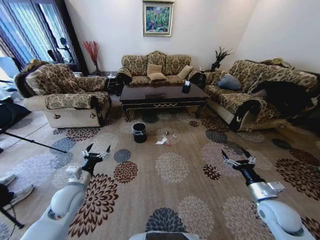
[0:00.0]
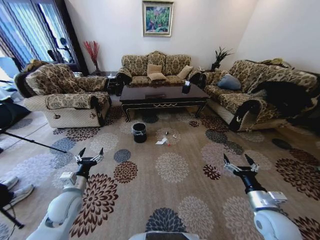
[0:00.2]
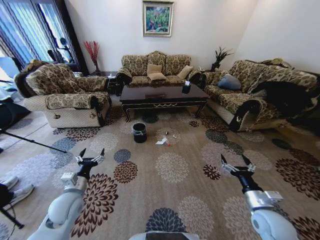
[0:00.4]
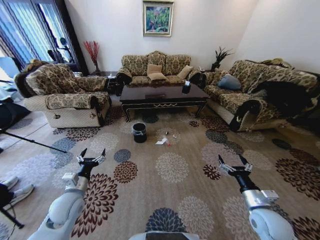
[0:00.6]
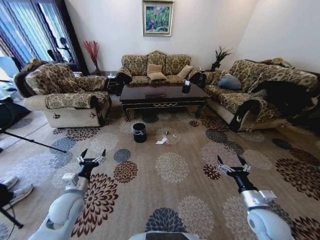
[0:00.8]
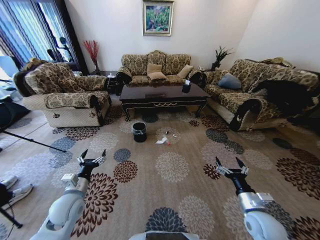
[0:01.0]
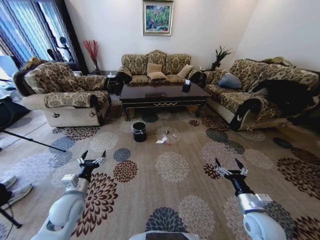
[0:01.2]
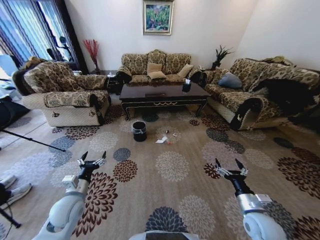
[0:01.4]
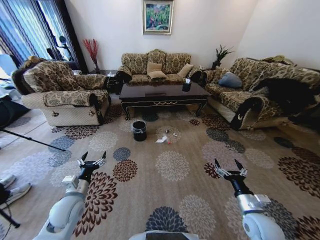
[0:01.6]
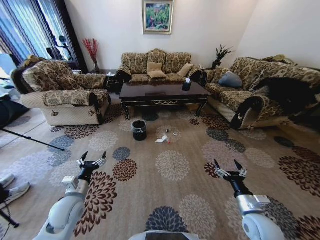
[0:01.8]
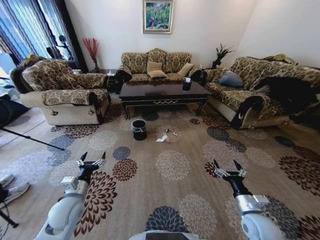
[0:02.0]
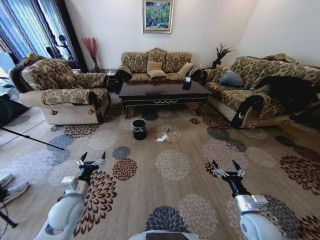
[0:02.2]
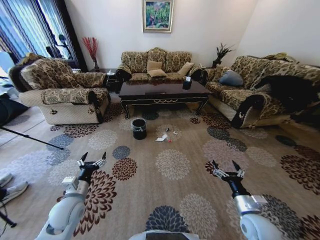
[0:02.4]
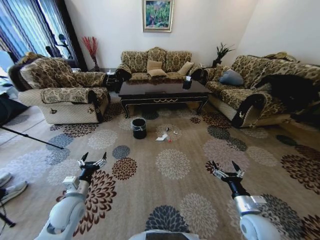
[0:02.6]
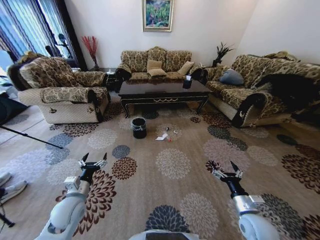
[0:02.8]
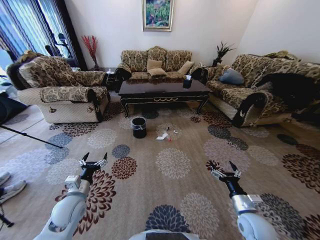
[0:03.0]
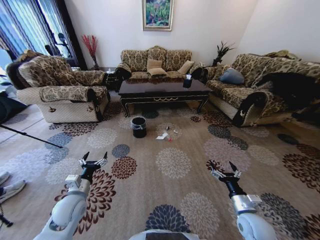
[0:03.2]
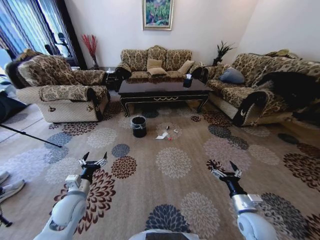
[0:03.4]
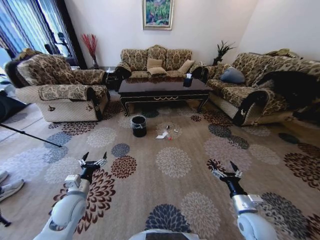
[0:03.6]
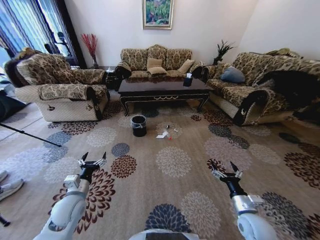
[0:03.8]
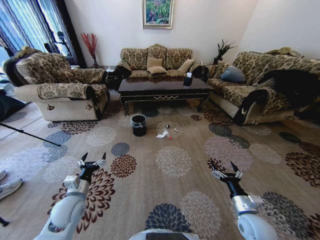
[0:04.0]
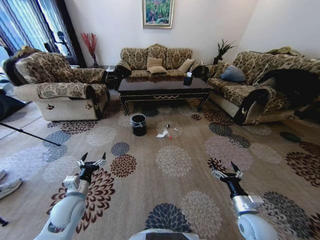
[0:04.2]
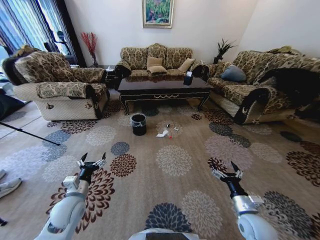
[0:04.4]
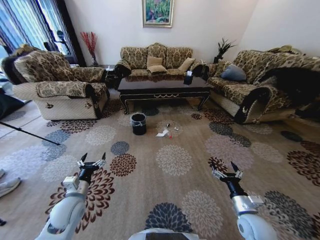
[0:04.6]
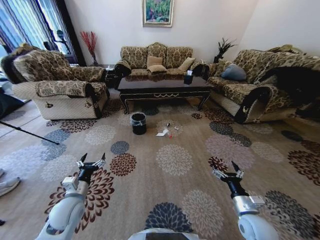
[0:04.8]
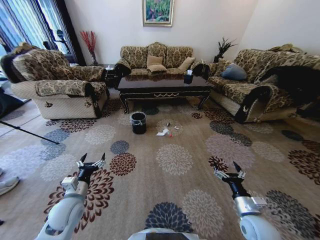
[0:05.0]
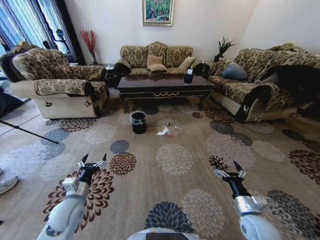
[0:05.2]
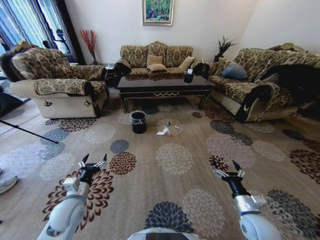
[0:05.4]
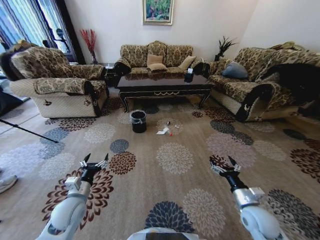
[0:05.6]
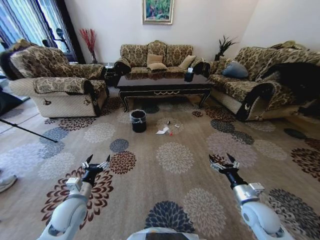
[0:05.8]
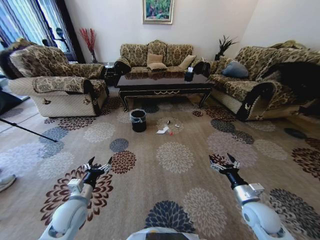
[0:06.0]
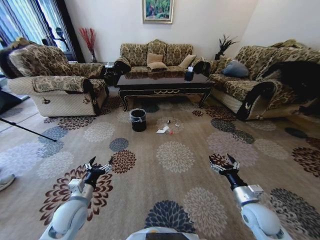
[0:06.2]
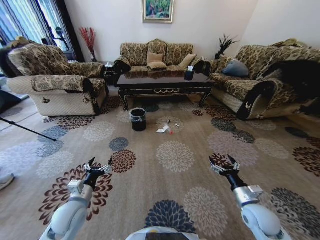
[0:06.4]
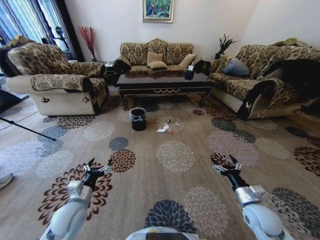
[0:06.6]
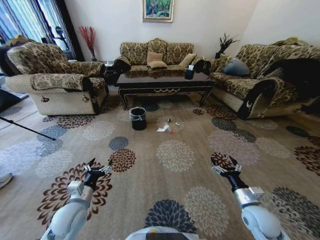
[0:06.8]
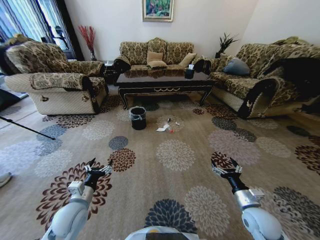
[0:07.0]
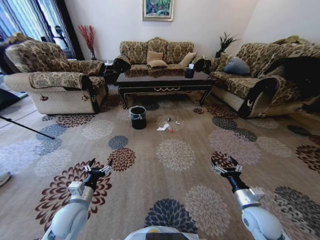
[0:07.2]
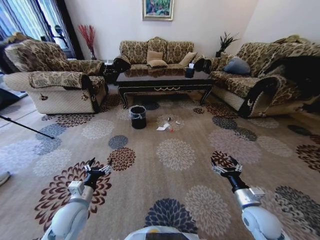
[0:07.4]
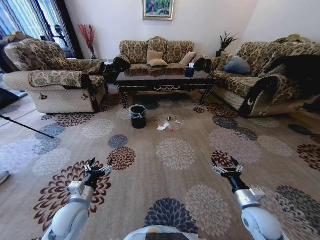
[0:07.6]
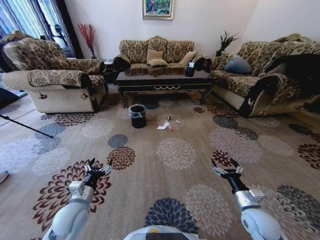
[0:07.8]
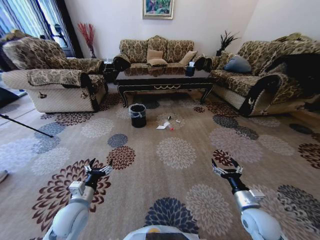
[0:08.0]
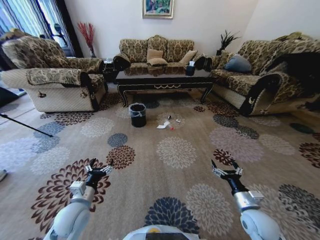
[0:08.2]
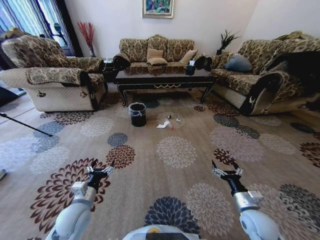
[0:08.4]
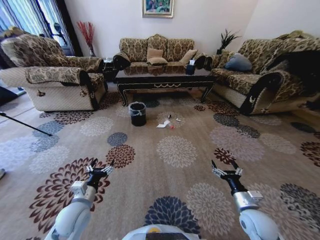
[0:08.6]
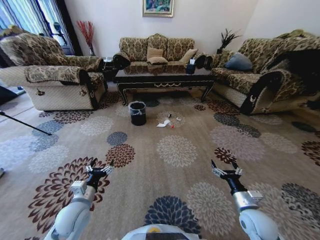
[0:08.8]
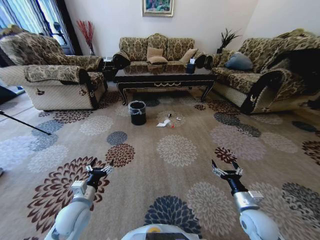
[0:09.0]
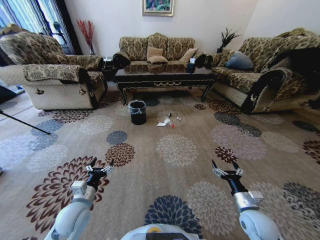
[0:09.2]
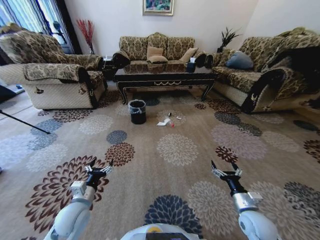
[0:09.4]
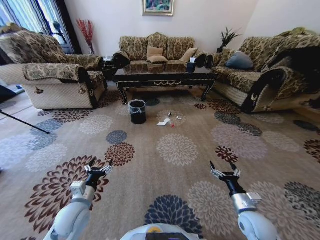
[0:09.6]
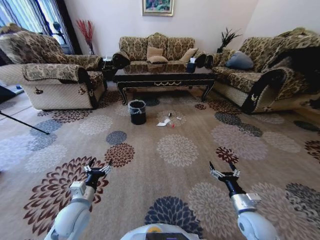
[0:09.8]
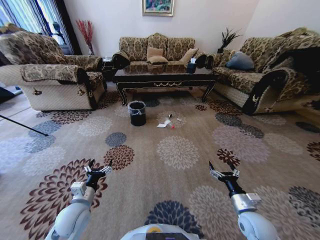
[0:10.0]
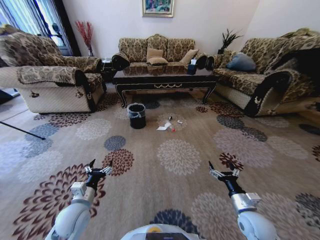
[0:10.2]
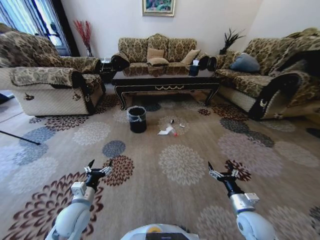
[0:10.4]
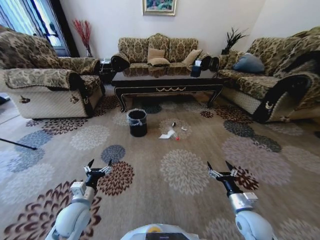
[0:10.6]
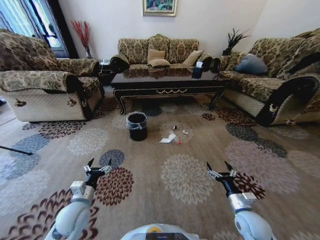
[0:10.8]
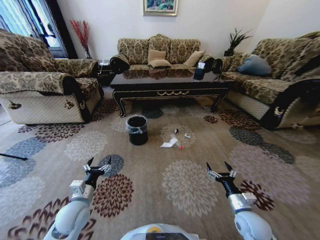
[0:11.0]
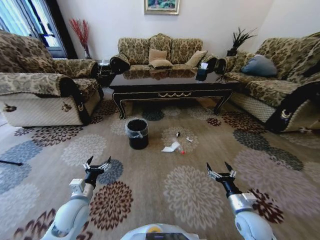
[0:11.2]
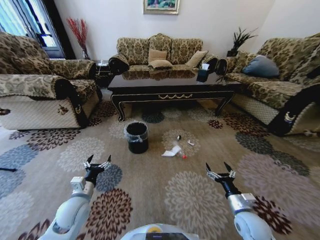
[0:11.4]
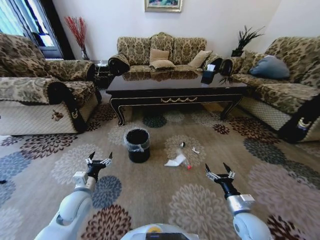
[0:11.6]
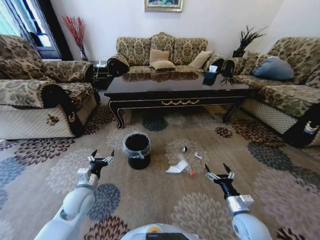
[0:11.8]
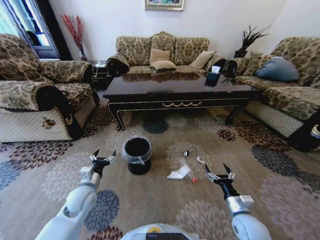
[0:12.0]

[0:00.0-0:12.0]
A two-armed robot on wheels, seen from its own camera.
Task of the whole recording: Move to the front of the table and pick up the trash from the floor, then place it into the trash bin.
0:10.4 to 0:12.0: The left gripper heads forward, covering approximately 5 cm.

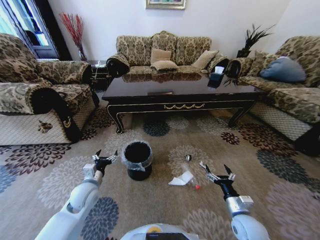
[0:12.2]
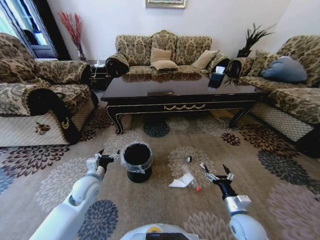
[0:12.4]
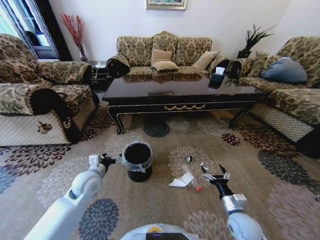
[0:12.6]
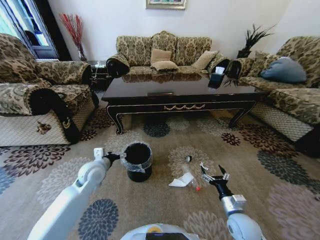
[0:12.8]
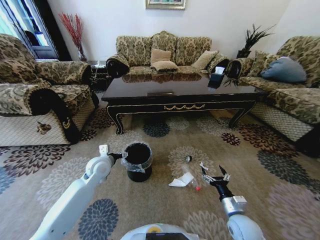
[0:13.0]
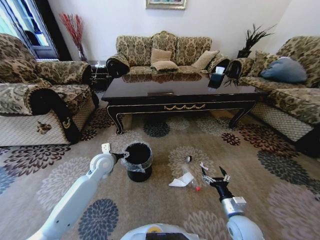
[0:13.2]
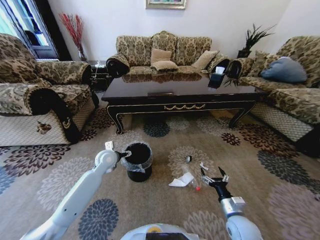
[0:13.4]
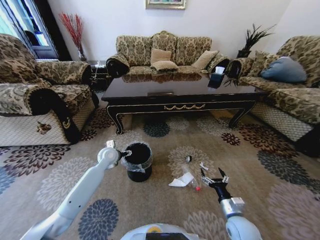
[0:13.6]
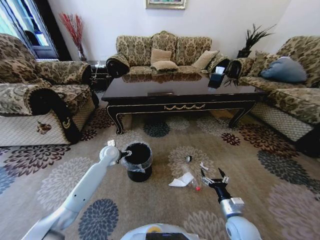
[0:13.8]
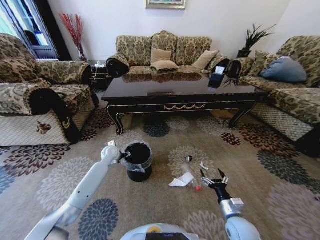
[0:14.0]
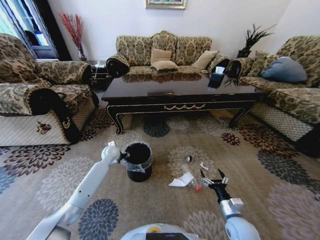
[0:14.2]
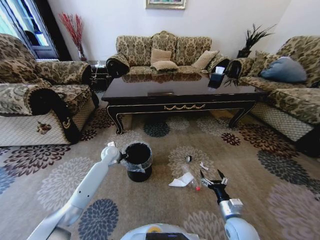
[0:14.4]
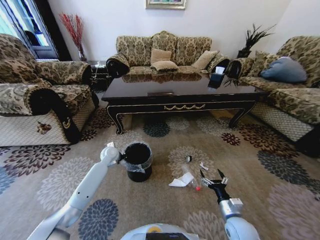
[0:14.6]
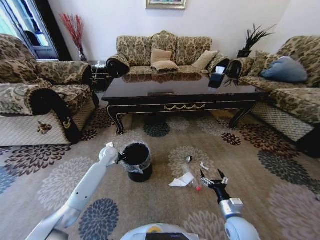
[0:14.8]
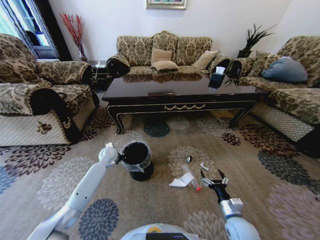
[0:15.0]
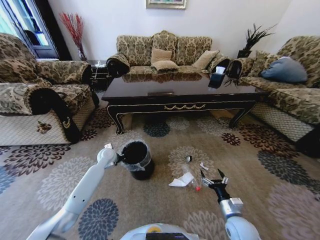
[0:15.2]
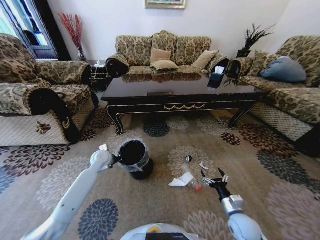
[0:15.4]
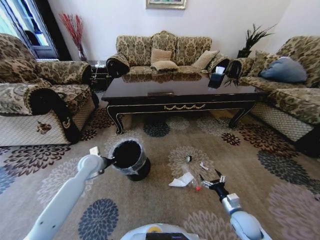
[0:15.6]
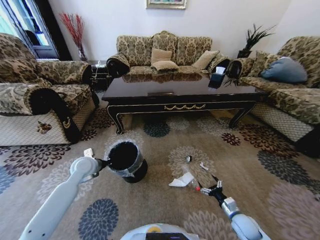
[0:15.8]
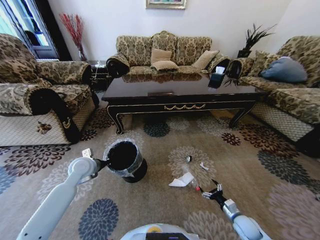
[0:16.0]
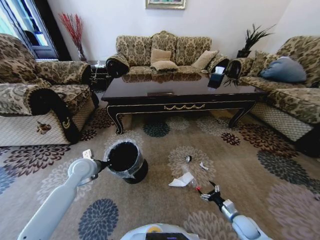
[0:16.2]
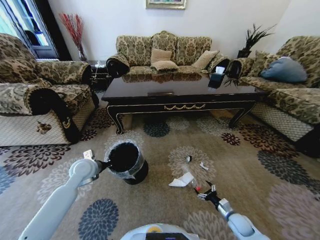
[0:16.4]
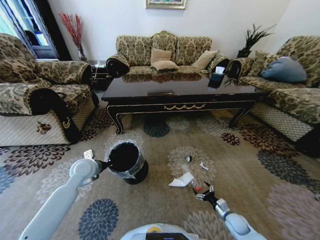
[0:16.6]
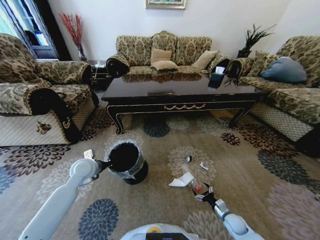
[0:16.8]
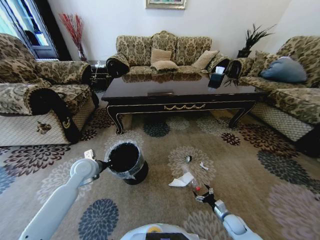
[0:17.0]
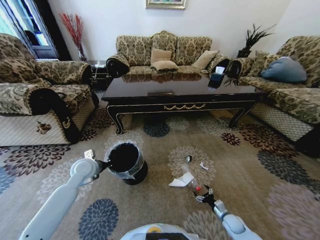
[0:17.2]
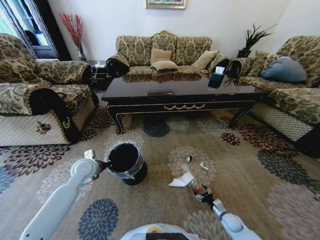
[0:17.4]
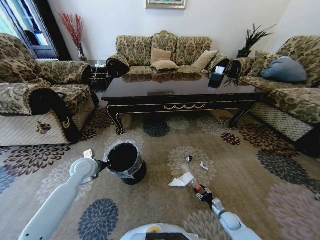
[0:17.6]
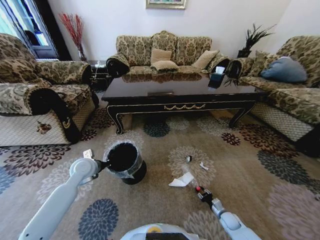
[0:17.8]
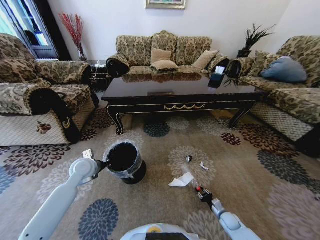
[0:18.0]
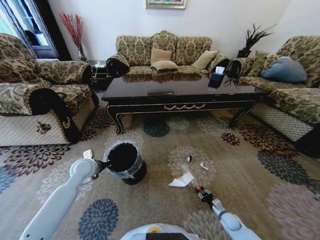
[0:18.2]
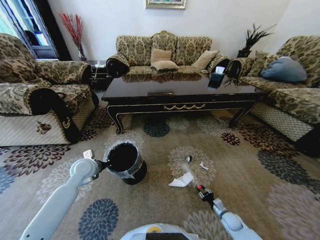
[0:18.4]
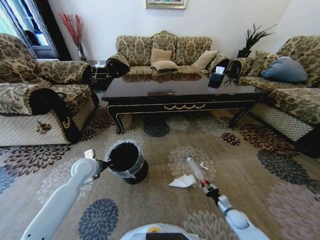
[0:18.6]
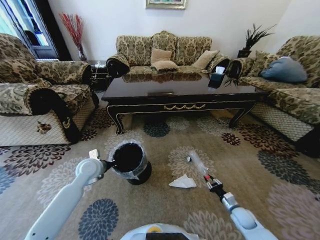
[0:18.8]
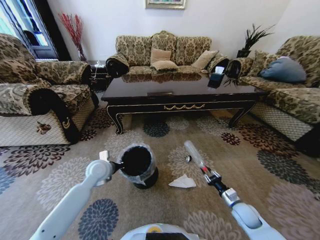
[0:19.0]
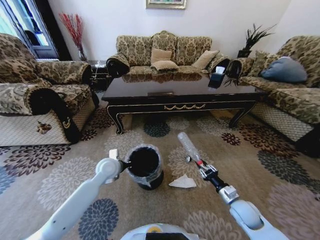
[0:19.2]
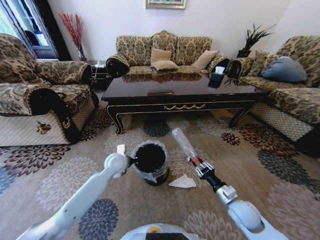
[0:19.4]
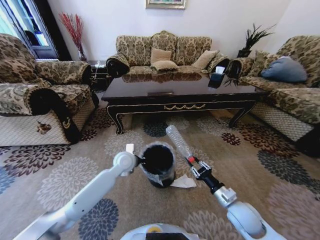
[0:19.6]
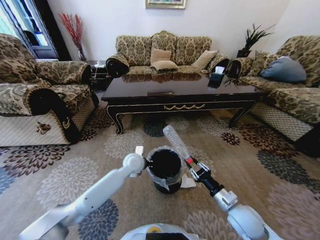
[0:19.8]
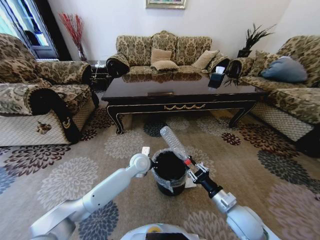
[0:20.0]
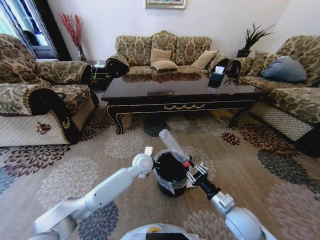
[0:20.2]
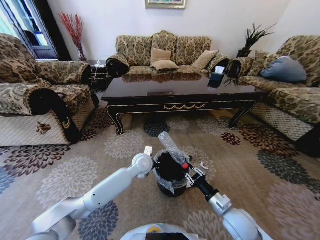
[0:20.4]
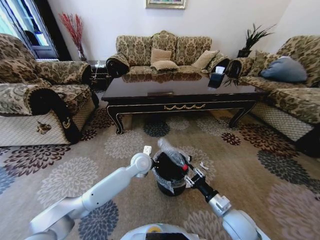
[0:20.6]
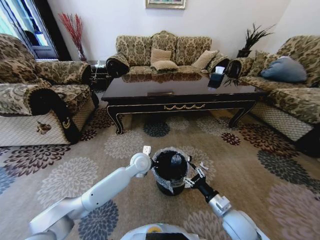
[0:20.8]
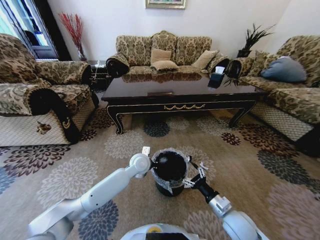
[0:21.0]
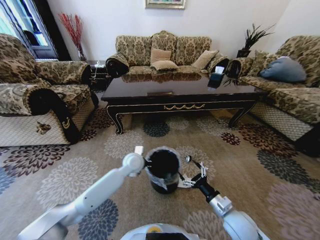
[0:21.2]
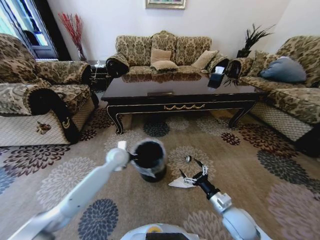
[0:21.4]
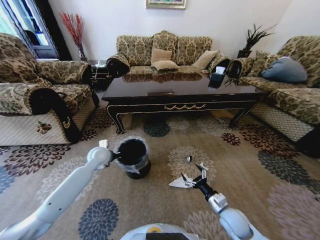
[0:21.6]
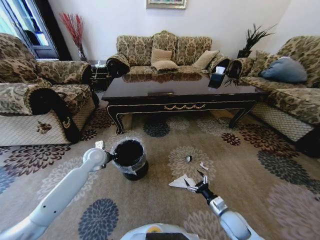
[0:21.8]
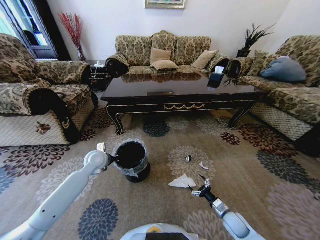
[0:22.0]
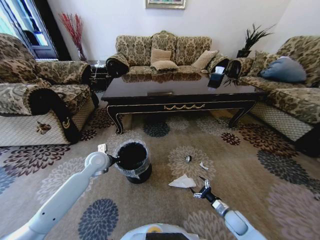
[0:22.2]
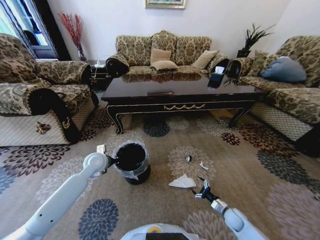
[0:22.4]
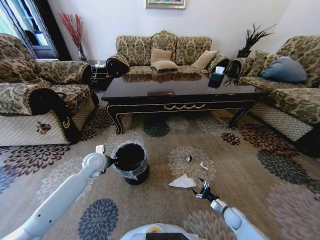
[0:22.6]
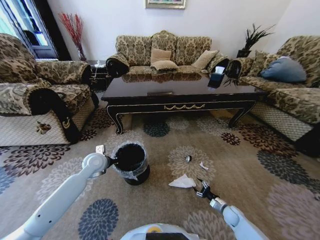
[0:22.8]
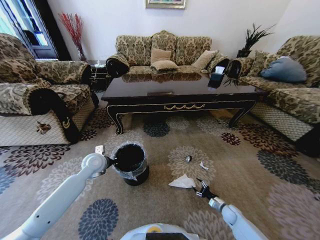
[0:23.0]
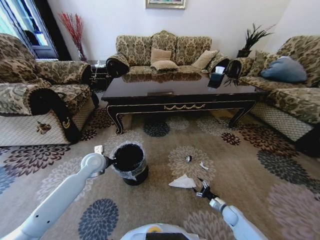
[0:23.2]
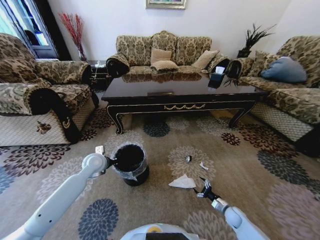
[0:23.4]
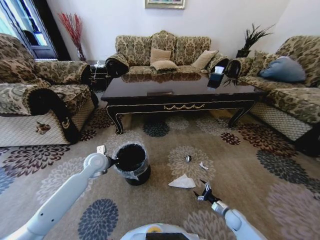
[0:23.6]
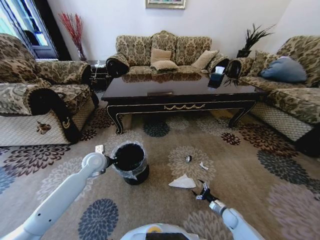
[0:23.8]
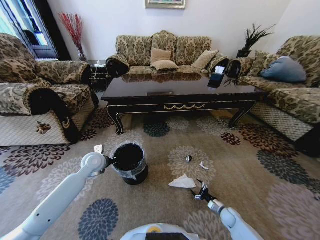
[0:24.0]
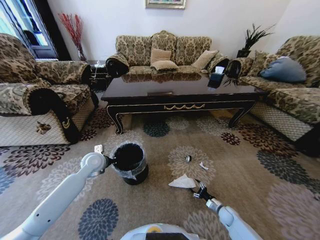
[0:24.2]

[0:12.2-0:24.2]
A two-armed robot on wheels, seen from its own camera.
Task of the whole recording: Move to the front of the table and pick up the trash from the floor, then place it into the trash bin.
0:12.2 to 0:13.8: The left gripper goes approximately 20 cm forward.
0:13.8 to 0:15.2: The left gripper closes its fingers.
0:15.2 to 0:16.6: The right gripper goes some 15 cm downward and to the right. Meanwhile the left gripper travels backward and upward by some 15 cm.
0:16.6 to 0:18.2: The right gripper closes its fingers.
0:18.2 to 0:19.8: The left gripper shifts roughly 20 cm to the right. Meanwhile the right gripper moves upward, about 25 cm.
0:19.8 to 0:21.2: The right gripper opens its fingers.
0:21.2 to 0:22.6: The left gripper heads to the left, covering roughly 15 cm. Meanwhile the right gripper is displaced downward and to the right by about 25 cm.
0:22.6 to 0:24.2: The grippers make only small movements.
